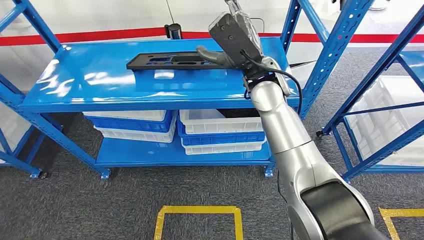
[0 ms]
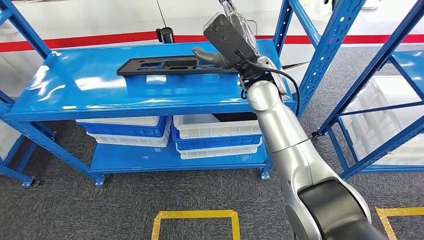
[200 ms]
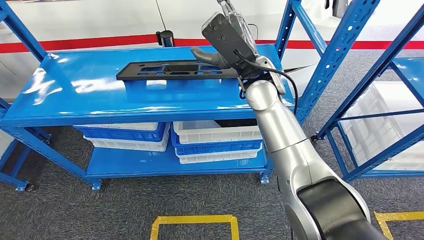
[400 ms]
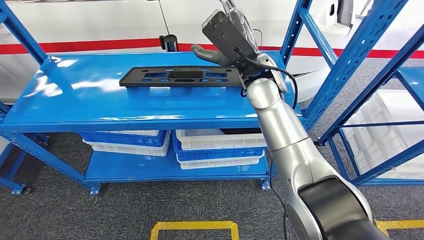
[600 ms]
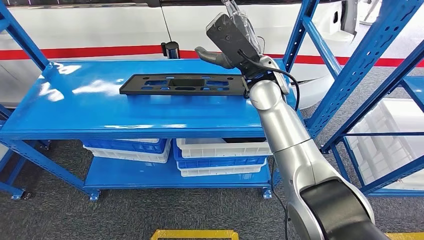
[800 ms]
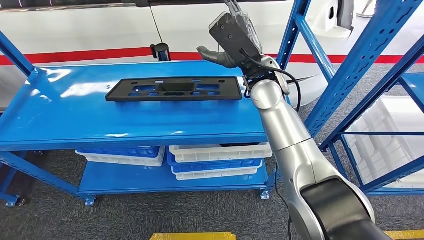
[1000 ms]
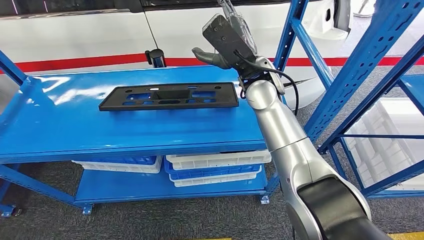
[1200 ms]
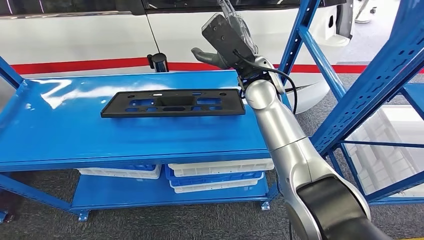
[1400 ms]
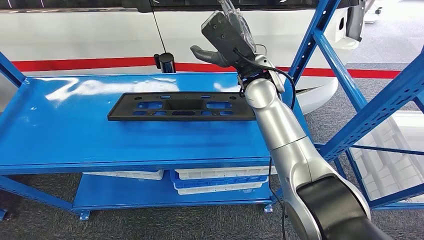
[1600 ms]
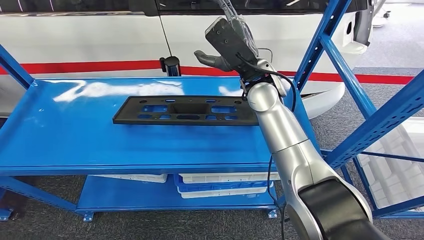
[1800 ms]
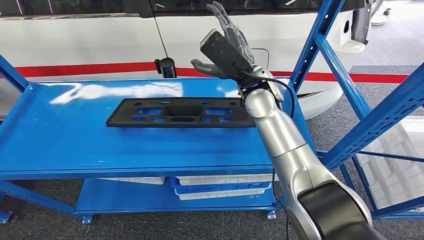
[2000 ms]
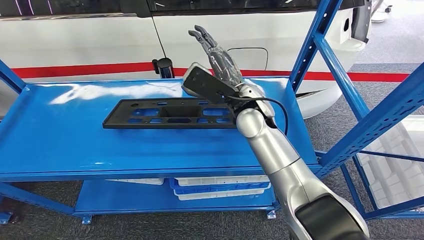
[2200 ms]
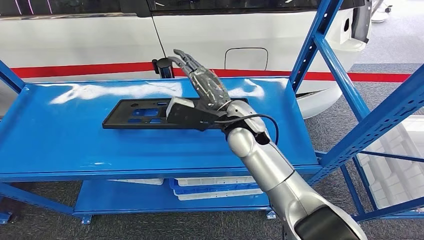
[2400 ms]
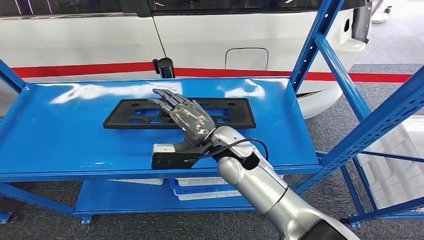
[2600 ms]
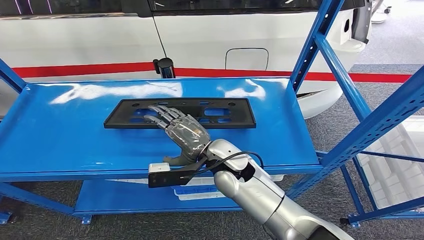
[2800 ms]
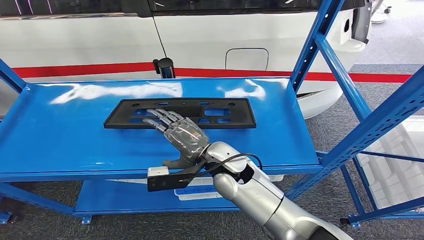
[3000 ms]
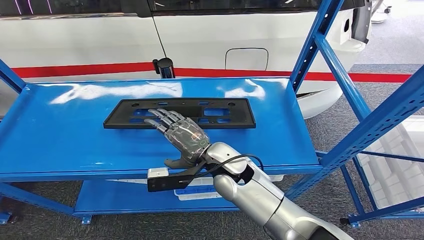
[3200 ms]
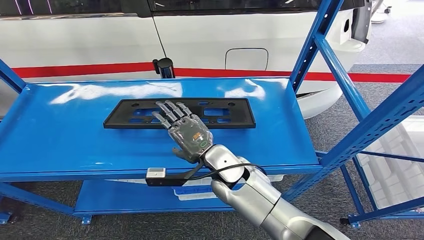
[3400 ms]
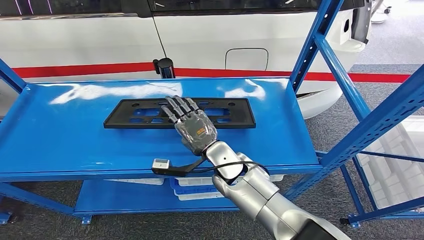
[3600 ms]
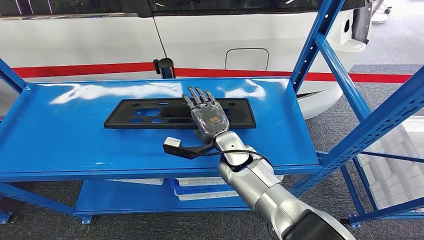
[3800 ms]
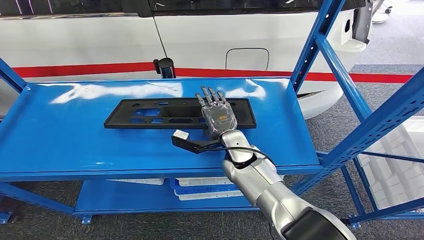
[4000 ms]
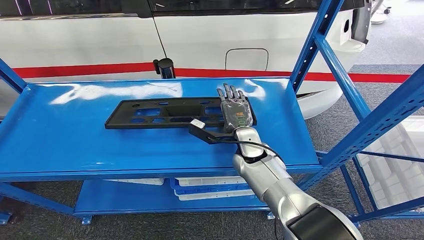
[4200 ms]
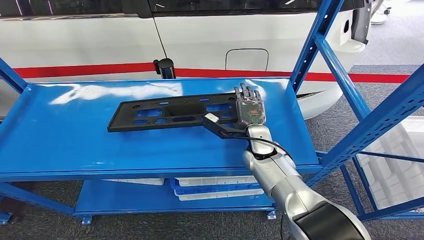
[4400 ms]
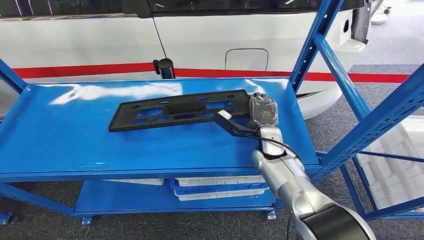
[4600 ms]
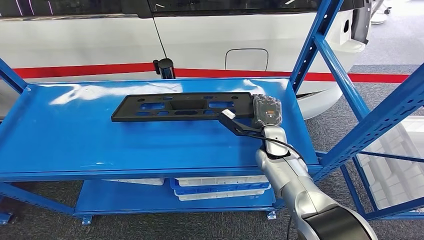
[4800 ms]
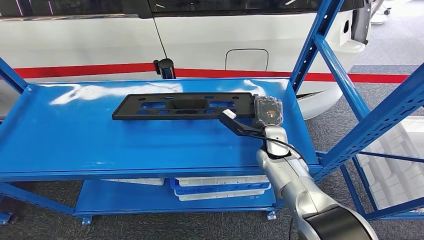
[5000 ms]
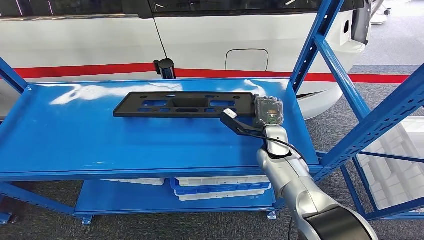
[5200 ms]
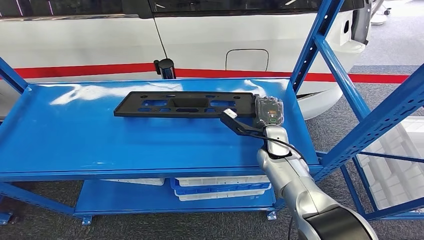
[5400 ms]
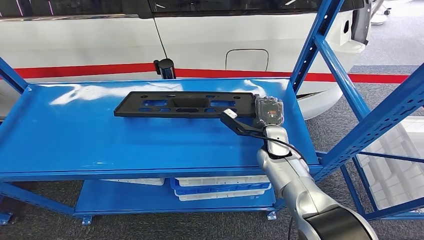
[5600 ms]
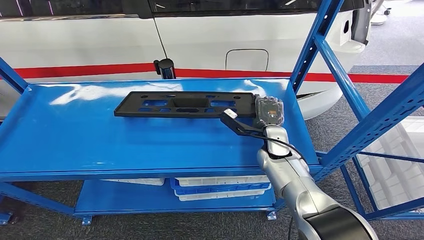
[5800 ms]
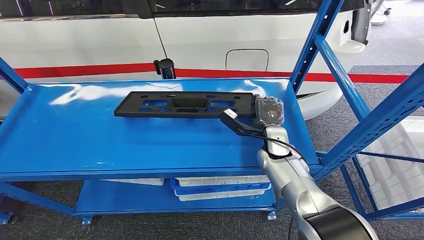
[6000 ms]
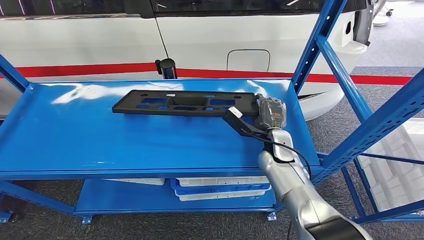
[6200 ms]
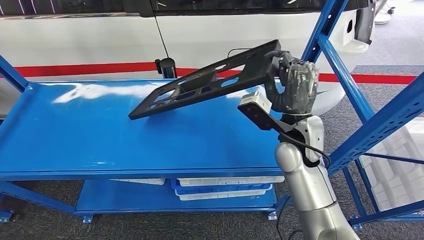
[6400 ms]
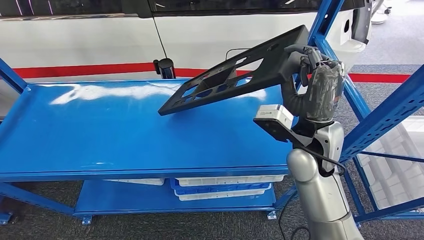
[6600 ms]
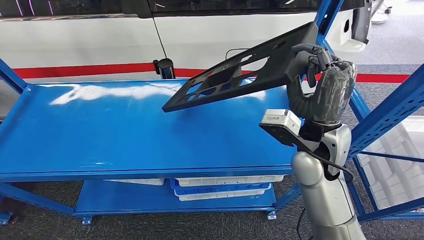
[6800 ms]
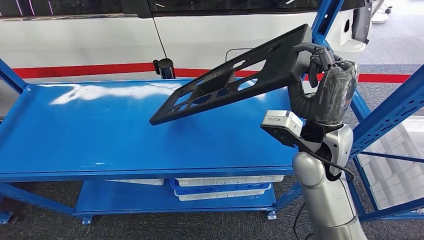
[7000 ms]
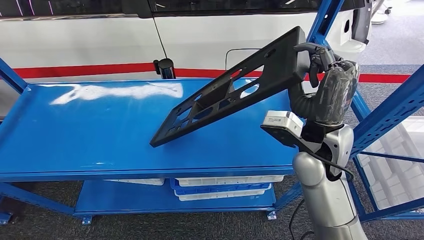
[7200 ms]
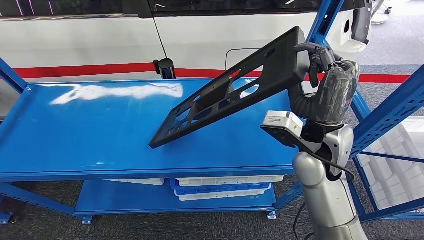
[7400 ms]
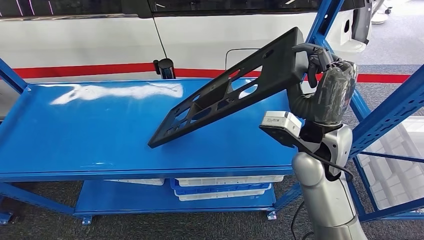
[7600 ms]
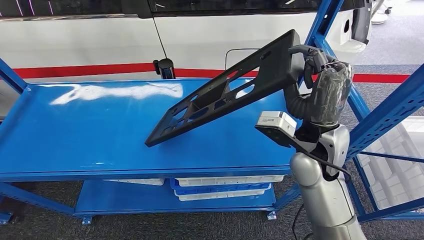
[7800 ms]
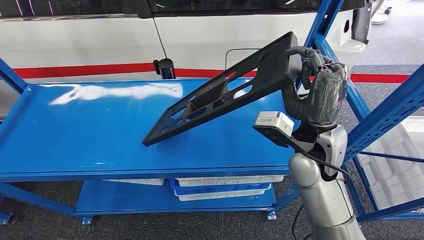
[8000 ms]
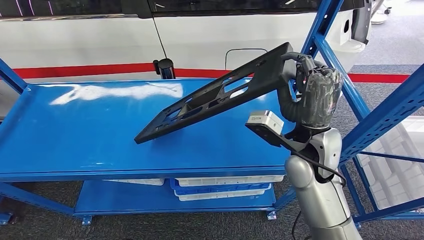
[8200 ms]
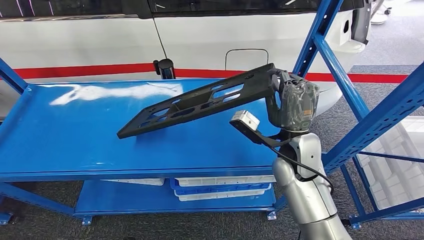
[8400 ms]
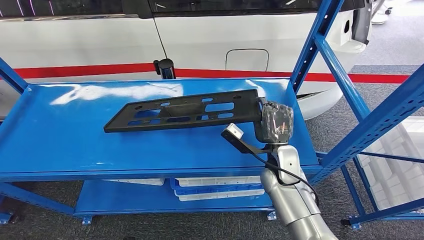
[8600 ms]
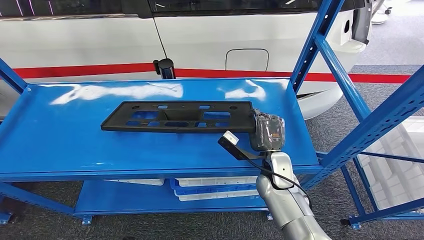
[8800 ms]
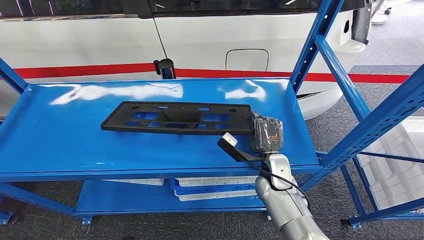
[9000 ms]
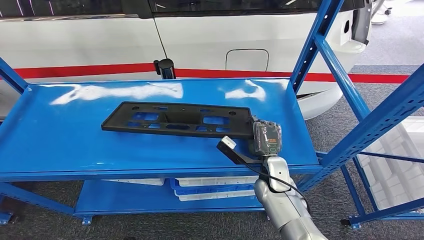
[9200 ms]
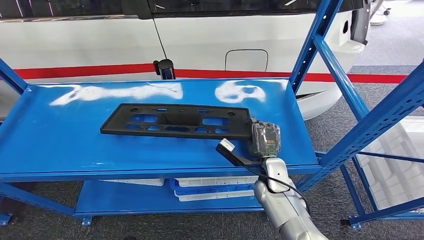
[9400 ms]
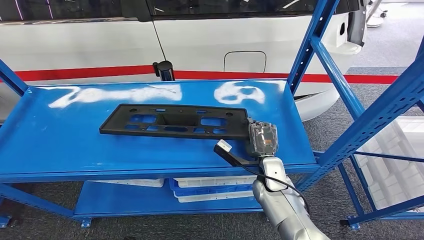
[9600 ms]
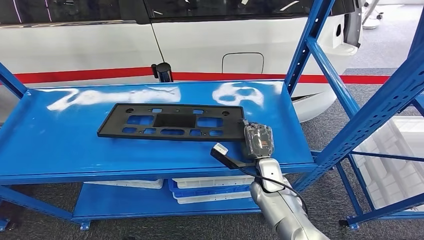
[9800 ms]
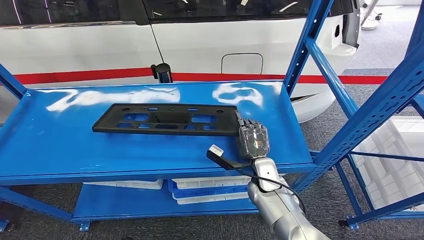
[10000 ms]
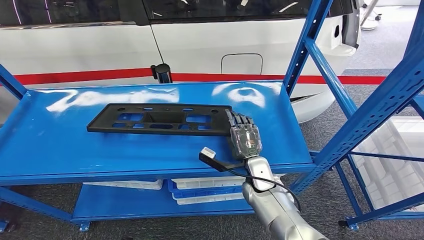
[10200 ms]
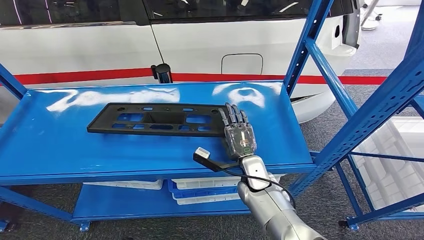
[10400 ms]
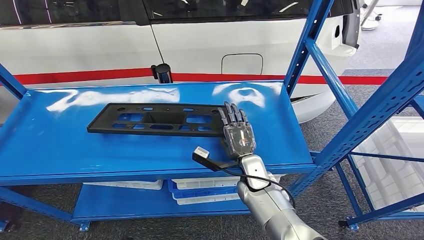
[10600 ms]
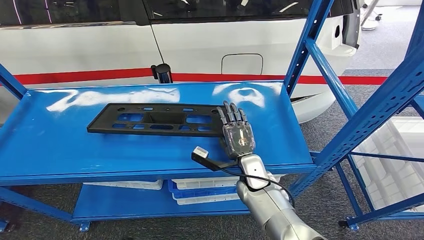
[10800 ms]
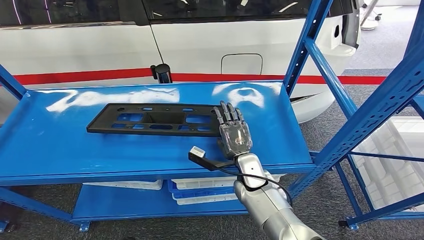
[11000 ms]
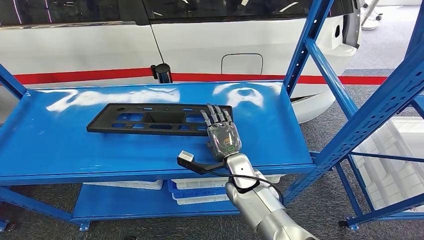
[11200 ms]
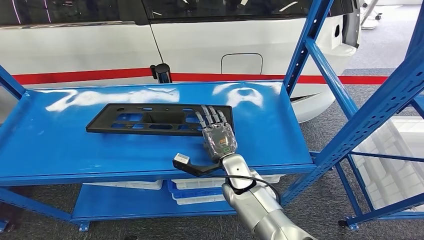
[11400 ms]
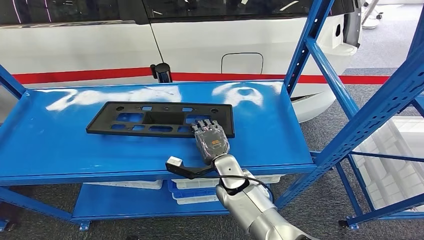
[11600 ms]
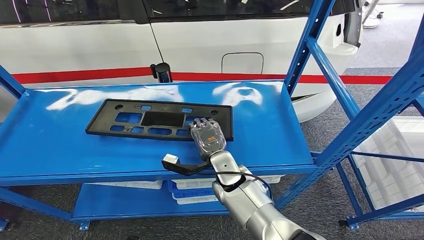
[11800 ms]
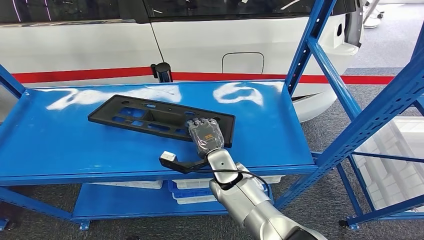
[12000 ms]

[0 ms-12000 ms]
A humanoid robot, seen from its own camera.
3000 ms to 4400 ms: The right hand goes some 15 cm to the right and forward.
4400 ms to 6000 ms: The hands stay close to where they were, moving slightly.
10400 ms to 12000 ms: The right hand is displaced to the left by about 10 cm.

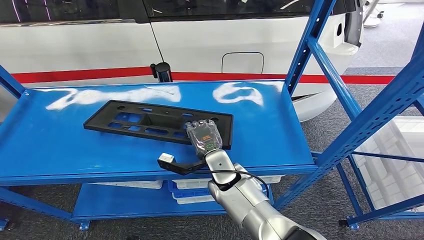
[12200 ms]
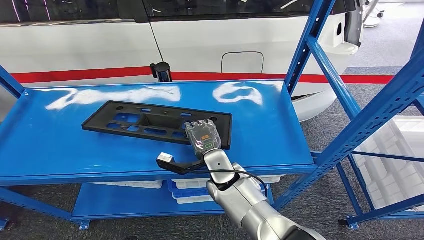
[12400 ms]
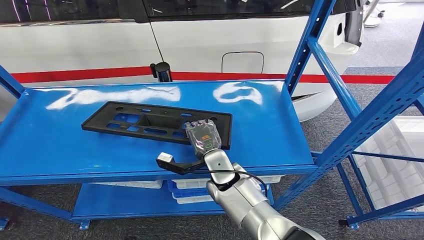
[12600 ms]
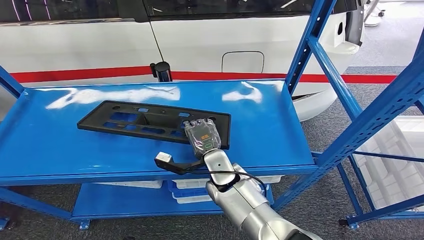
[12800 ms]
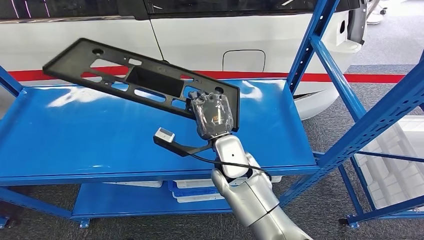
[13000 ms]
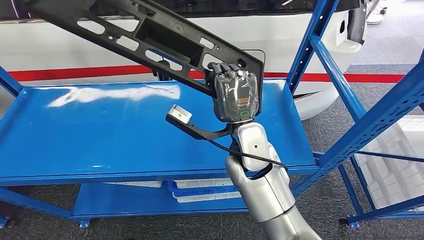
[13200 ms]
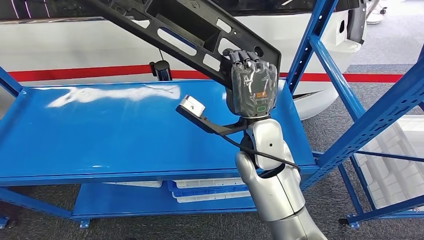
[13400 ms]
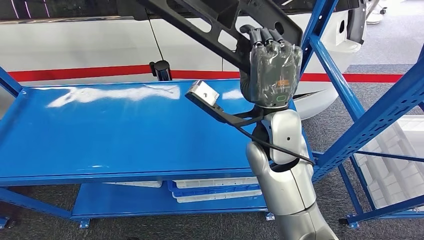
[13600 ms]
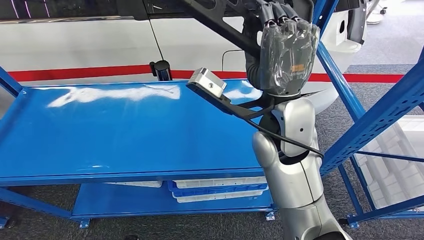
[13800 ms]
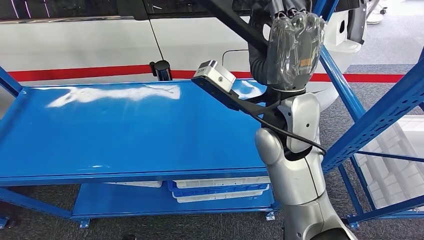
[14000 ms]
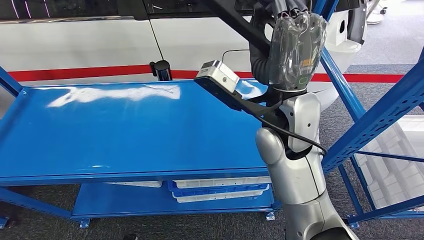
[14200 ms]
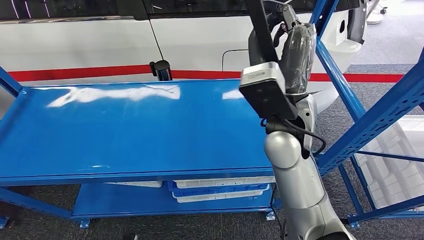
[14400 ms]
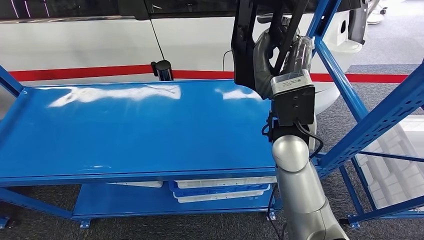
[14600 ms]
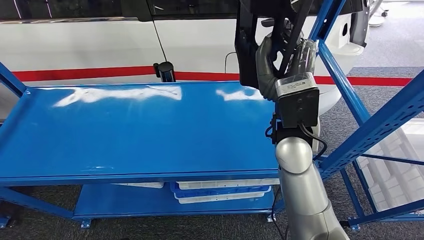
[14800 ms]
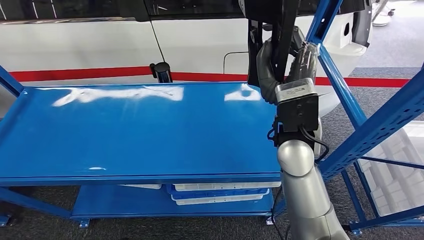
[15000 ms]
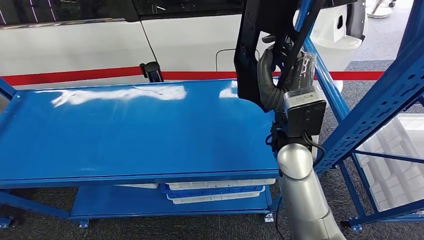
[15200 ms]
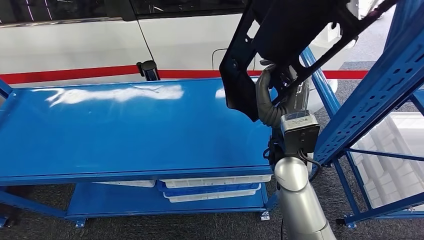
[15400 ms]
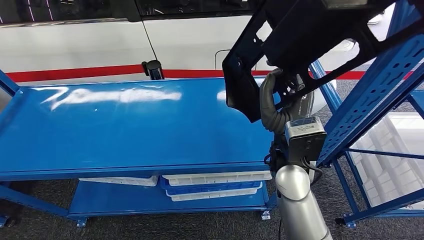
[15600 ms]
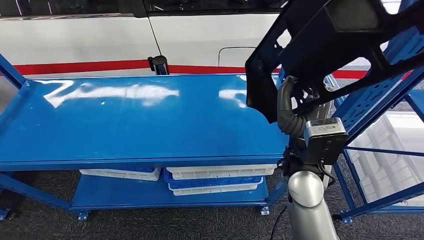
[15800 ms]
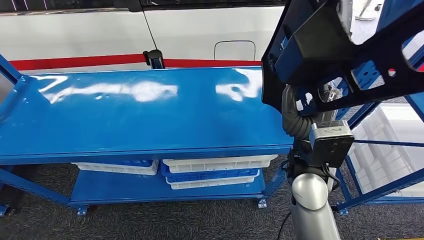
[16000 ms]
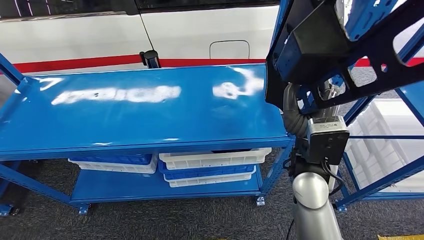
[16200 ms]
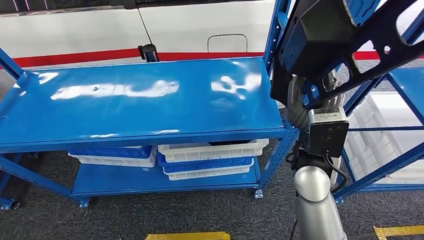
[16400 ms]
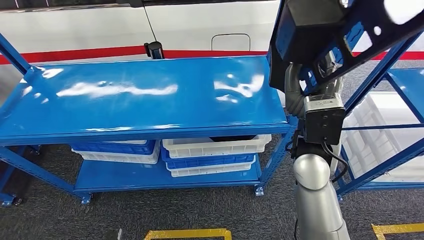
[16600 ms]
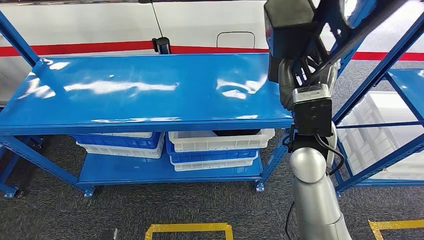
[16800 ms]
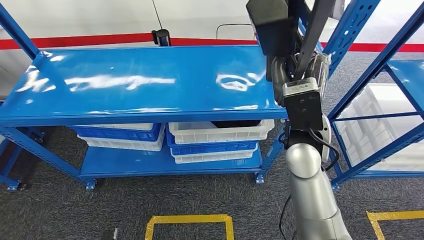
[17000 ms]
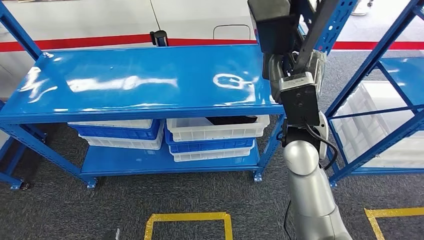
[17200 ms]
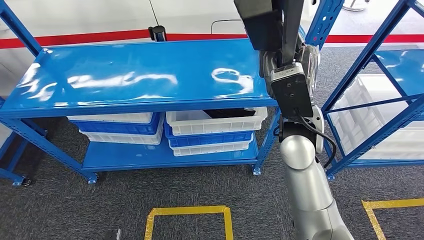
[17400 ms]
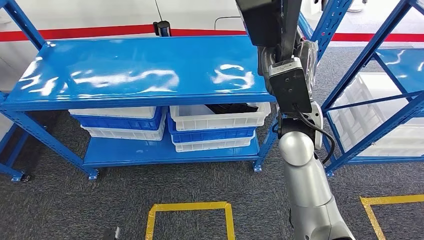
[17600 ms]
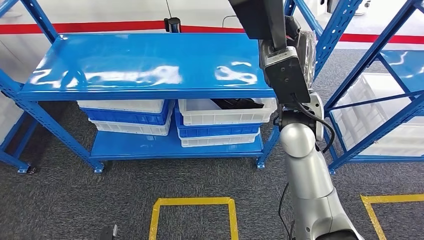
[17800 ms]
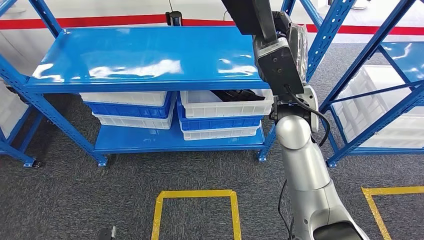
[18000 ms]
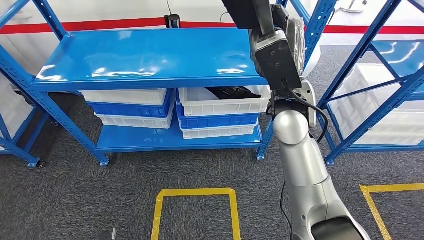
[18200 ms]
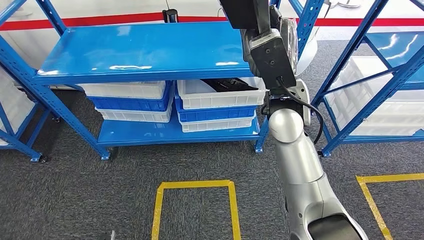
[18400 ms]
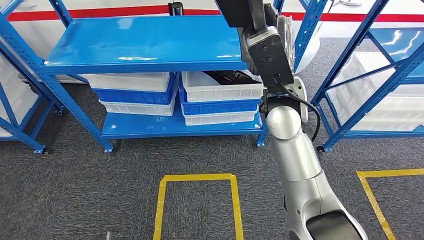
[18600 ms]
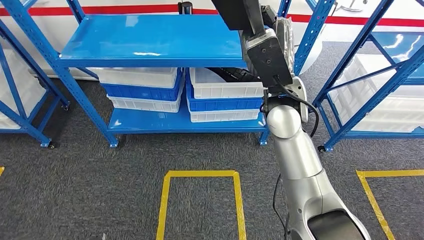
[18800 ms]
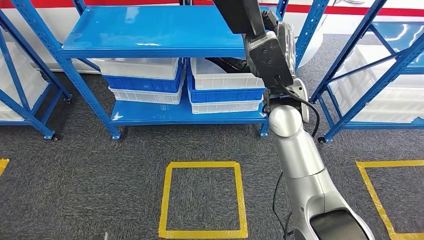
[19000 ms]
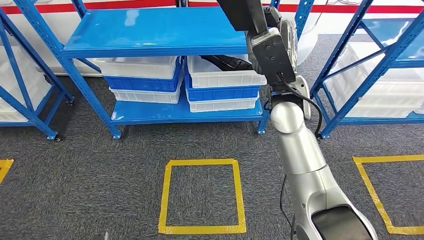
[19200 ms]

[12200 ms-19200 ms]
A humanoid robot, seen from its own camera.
Step, 12200 ms to 14800 ms: Pick up the large material from the shelf.
